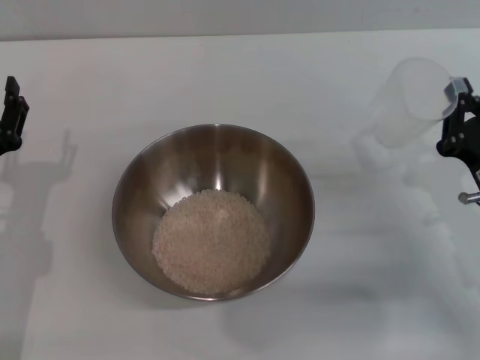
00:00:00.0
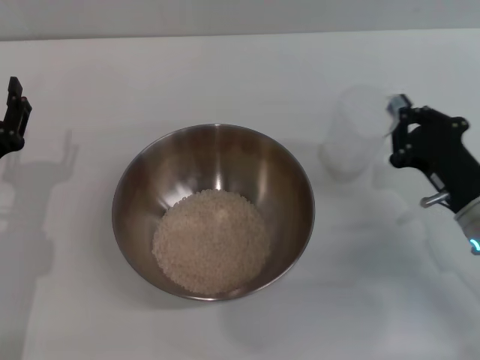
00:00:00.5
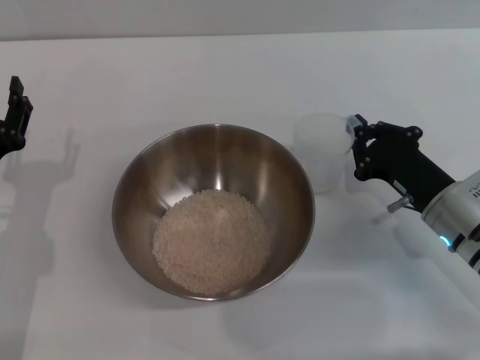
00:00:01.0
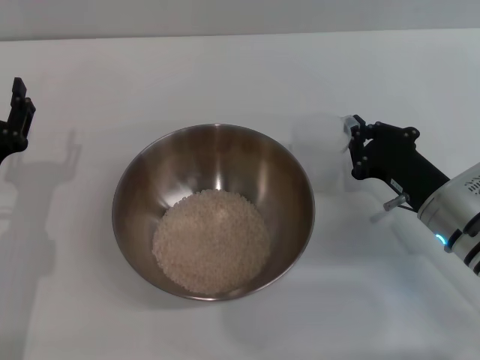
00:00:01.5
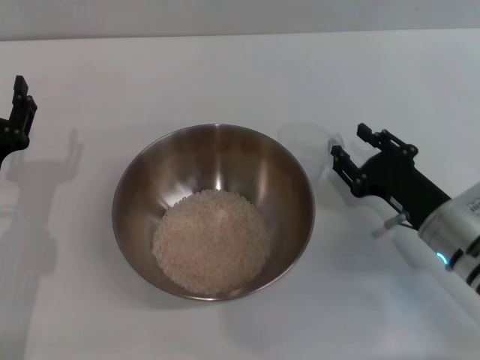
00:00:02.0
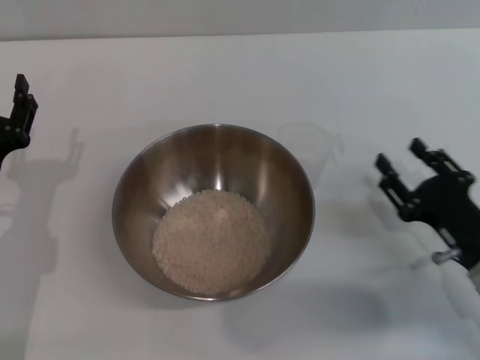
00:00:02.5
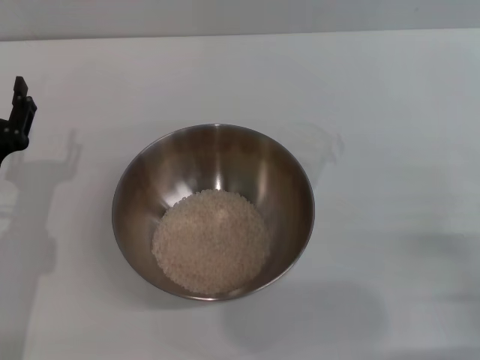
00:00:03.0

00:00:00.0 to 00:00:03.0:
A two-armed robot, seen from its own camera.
Task of the whole recording: Place the bowl in the middle of the table with one hand and pour the rice from the grain cup into it with the other hand.
Step, 00:00:00.0 to 00:00:02.0: Place the cup on the table with the right gripper.
00:00:00.0 to 00:00:01.5: The right gripper shifts by approximately 5 cm.
00:00:01.5 to 00:00:03.0: The right gripper moves backward and to the right, some 15 cm, and opens.
